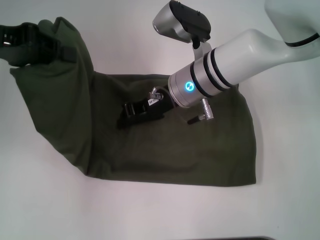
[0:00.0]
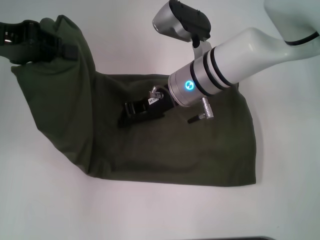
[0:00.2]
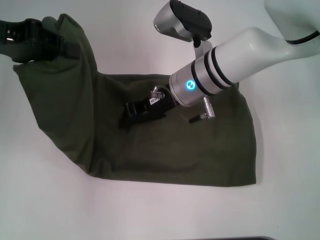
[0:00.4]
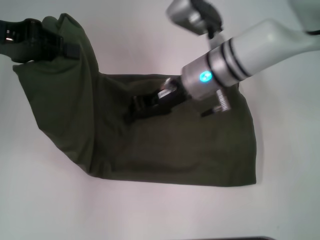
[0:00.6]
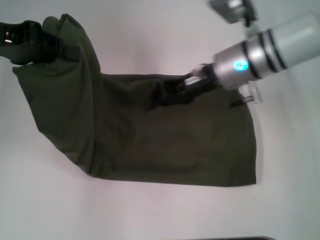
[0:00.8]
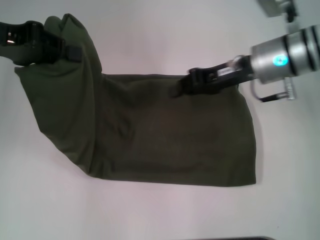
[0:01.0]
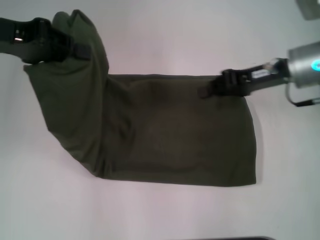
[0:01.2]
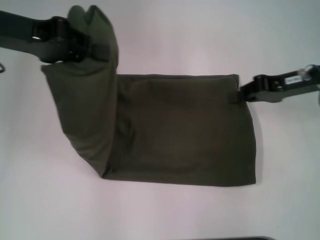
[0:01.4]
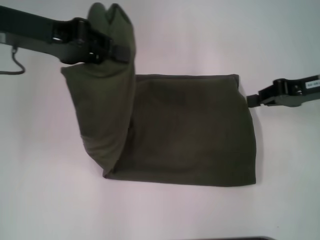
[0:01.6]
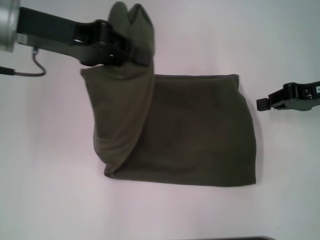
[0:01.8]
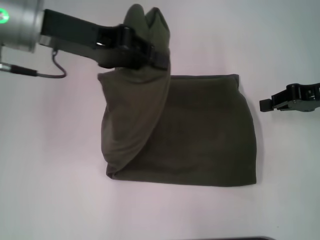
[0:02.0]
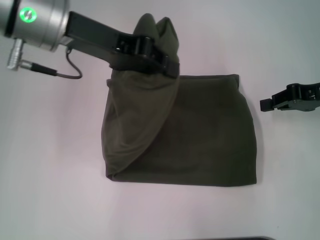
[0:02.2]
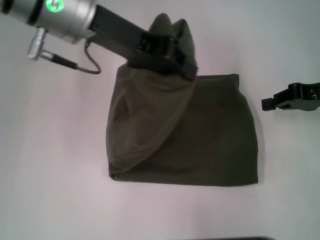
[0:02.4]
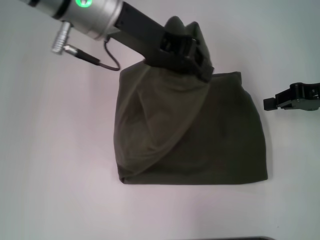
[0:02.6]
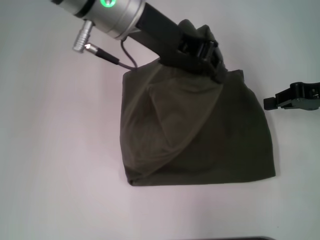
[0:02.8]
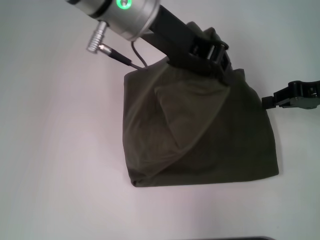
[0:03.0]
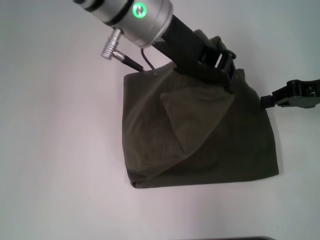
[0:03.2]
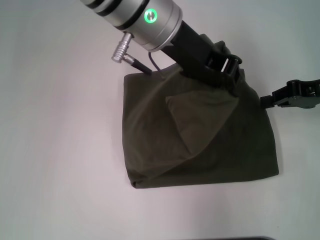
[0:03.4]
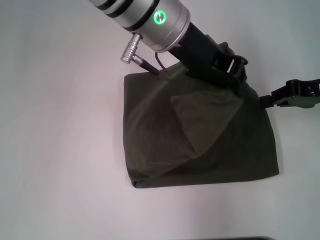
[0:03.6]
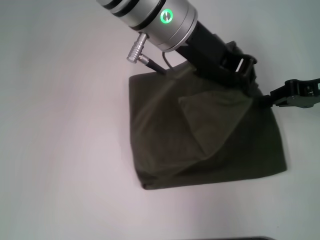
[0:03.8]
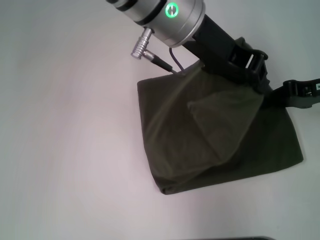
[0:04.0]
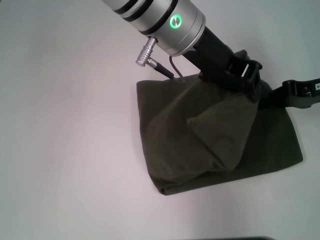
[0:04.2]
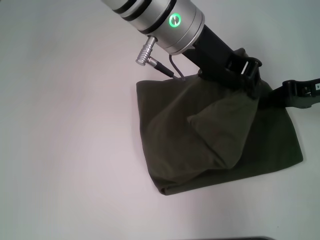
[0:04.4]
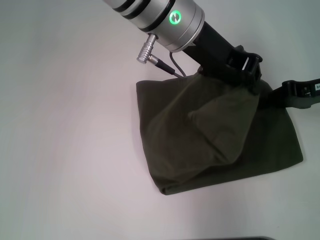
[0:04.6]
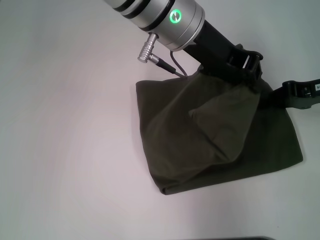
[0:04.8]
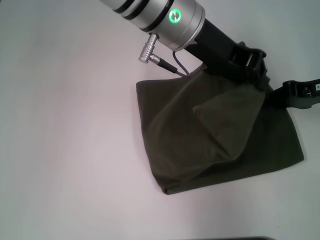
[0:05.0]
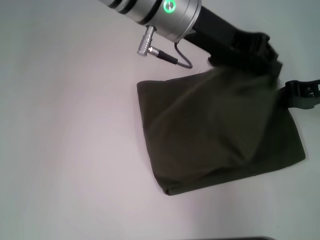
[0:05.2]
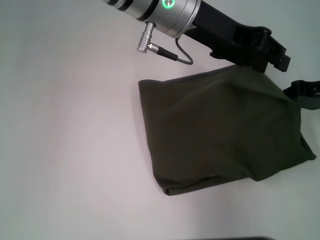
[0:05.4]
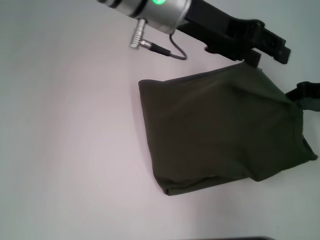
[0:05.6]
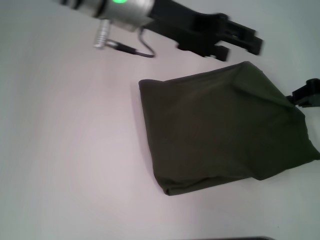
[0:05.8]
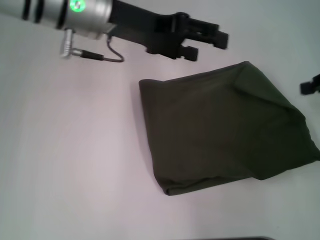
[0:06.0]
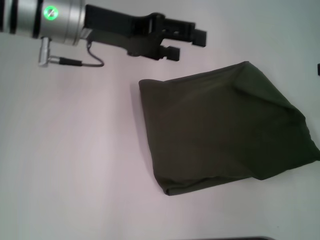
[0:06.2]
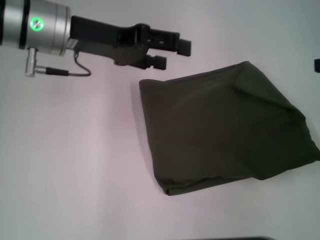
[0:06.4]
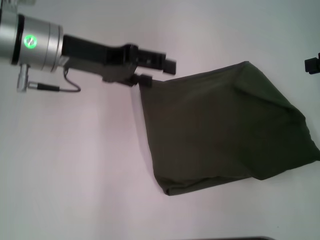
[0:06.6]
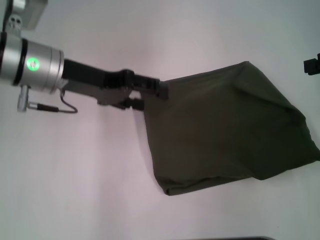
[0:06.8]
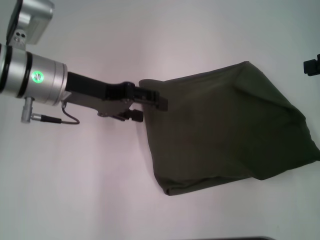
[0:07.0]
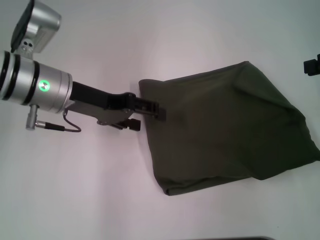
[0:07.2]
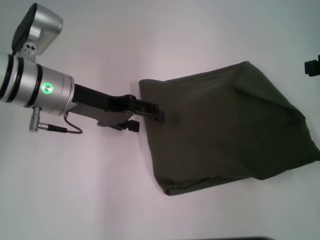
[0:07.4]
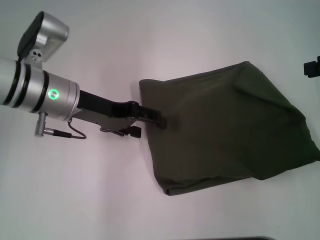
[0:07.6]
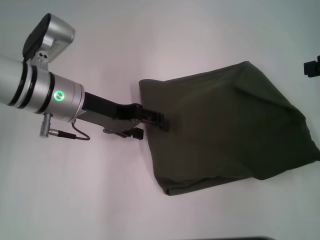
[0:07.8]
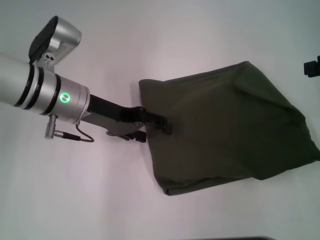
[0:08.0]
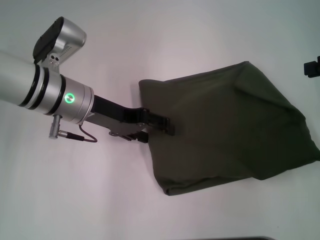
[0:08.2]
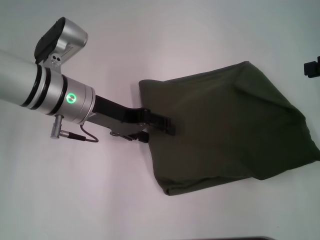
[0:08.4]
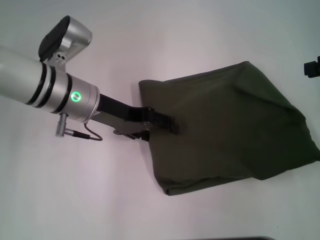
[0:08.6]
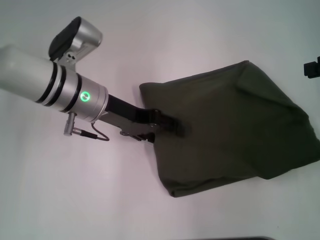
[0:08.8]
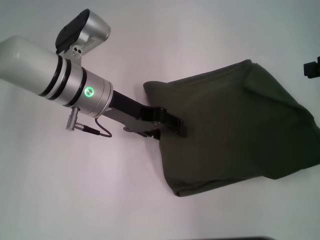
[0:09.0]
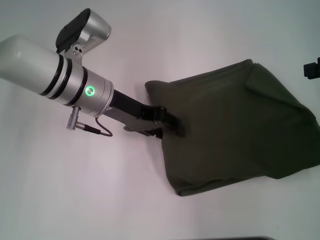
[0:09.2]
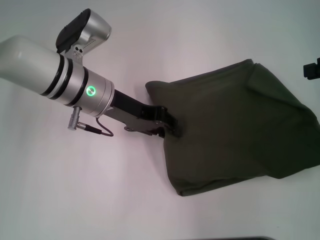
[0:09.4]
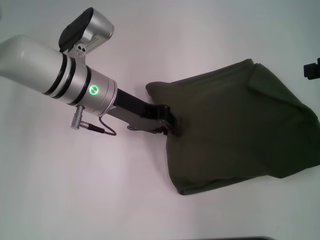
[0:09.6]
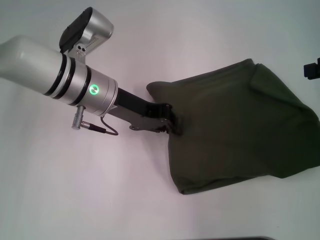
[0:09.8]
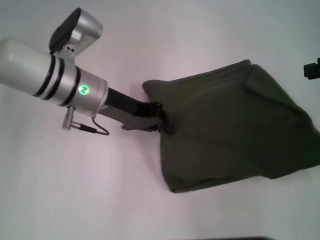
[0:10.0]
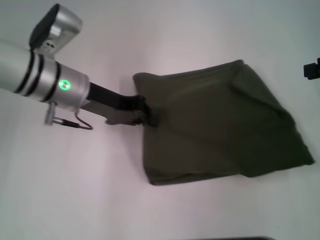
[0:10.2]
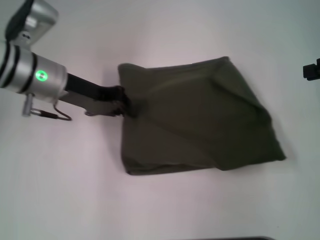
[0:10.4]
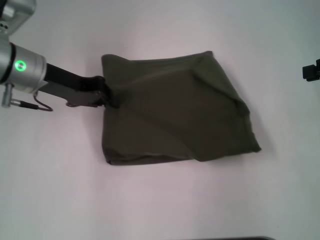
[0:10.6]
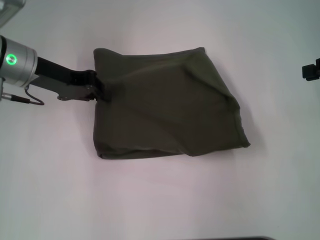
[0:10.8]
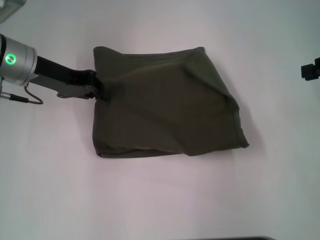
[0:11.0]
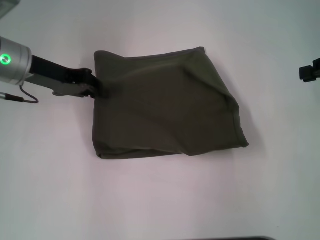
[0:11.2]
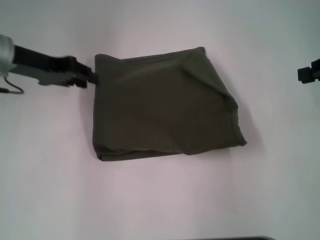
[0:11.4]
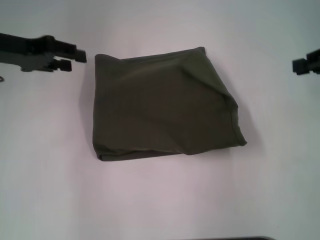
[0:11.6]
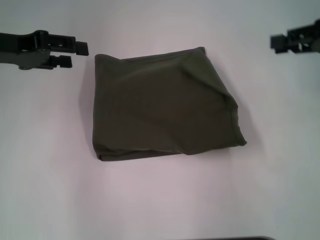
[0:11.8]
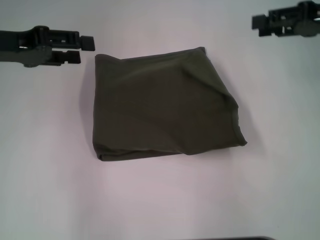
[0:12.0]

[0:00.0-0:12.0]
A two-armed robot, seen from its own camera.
Step, 0:00.0 to 0:05.6: Fold the clothes with your left hand.
0:00.0 to 0:01.6: The right gripper is displaced to the right by approximately 25 cm; the left gripper heads to the right, covering about 5 cm.
0:01.6 to 0:03.0: The left gripper heads to the right, covering roughly 15 cm.
0:03.0 to 0:04.4: The left gripper changes place by approximately 5 cm.
0:04.4 to 0:06.0: The left gripper shifts about 10 cm to the left, and opens its fingers; the right gripper travels to the right by approximately 5 cm.
0:06.0 to 0:07.6: The left gripper shifts approximately 10 cm downward and to the left.
0:07.6 to 0:09.0: The grippers make only small movements.
0:09.0 to 0:10.4: The left gripper goes some 5 cm to the left, and closes up.
0:10.4 to 0:12.0: The left gripper goes some 10 cm to the left and upward, and opens, while the right gripper goes approximately 5 cm to the left, and opens its fingers.

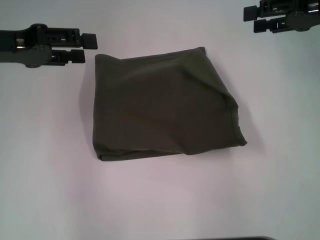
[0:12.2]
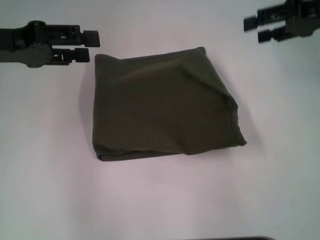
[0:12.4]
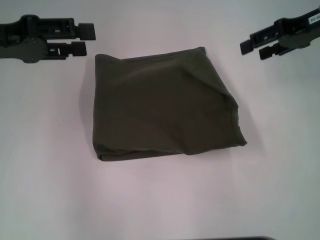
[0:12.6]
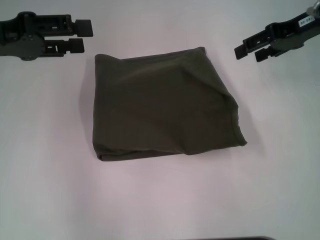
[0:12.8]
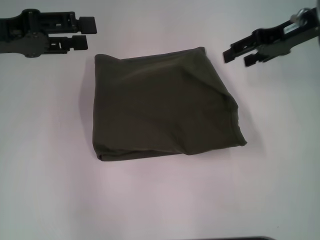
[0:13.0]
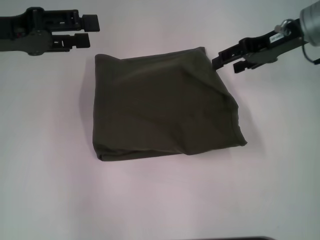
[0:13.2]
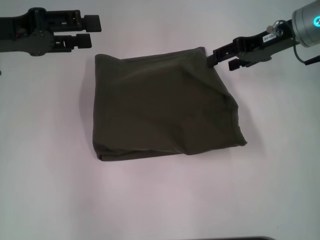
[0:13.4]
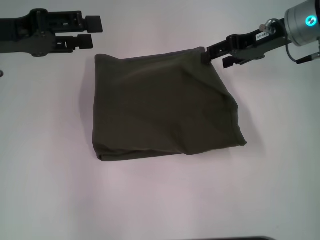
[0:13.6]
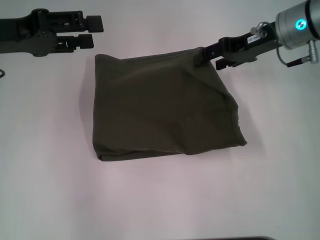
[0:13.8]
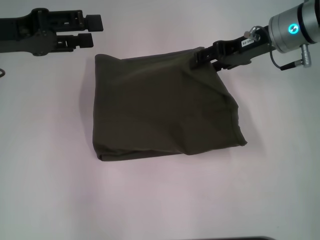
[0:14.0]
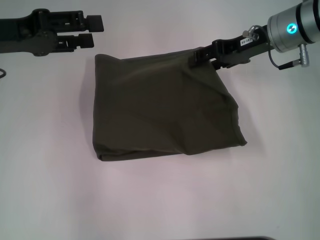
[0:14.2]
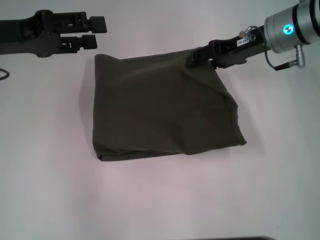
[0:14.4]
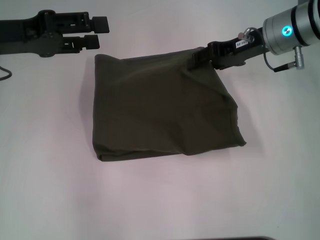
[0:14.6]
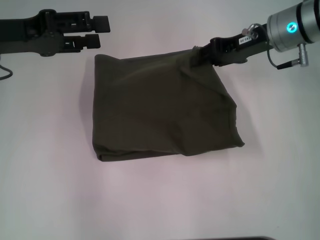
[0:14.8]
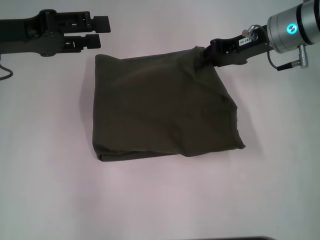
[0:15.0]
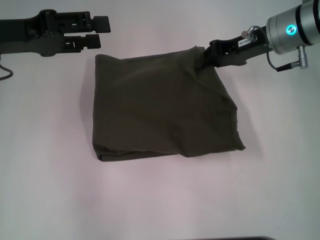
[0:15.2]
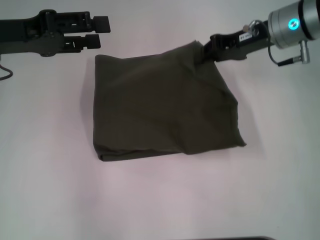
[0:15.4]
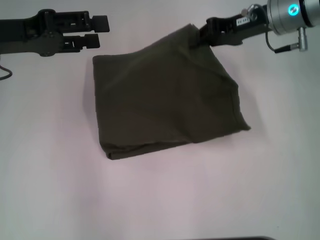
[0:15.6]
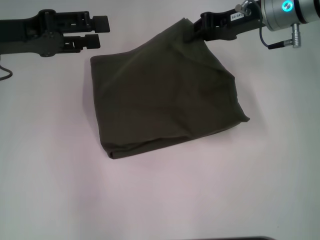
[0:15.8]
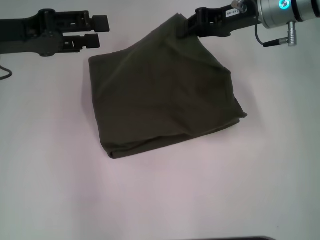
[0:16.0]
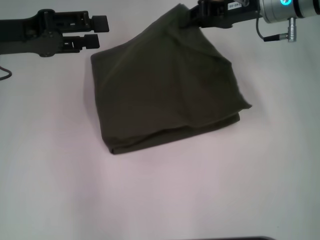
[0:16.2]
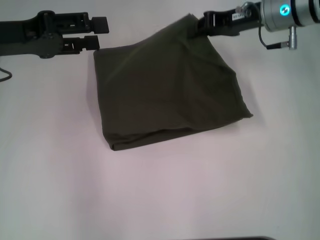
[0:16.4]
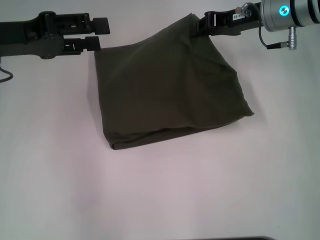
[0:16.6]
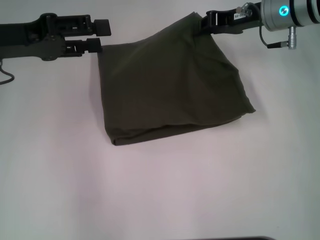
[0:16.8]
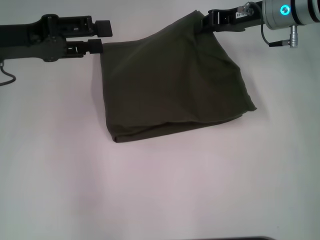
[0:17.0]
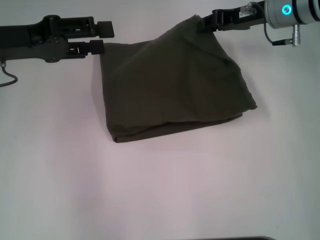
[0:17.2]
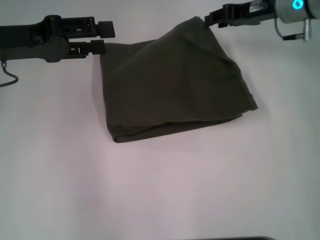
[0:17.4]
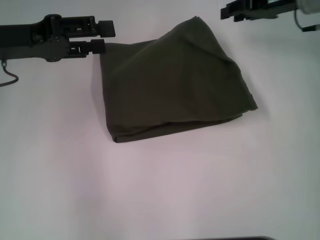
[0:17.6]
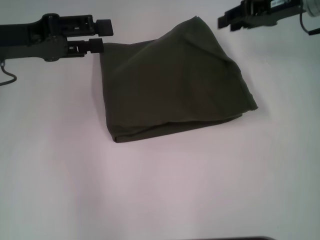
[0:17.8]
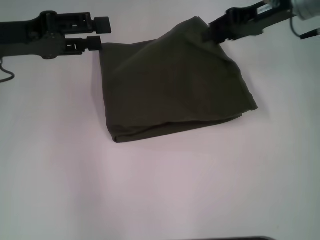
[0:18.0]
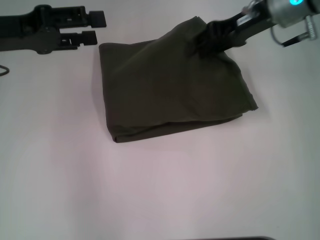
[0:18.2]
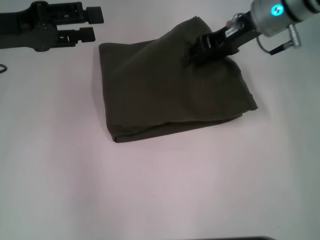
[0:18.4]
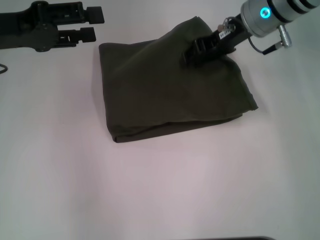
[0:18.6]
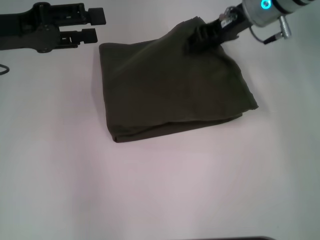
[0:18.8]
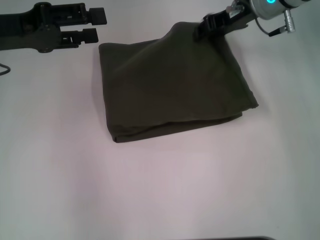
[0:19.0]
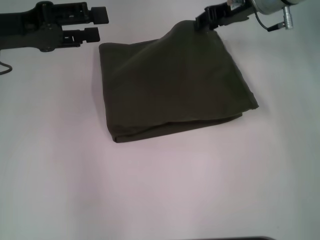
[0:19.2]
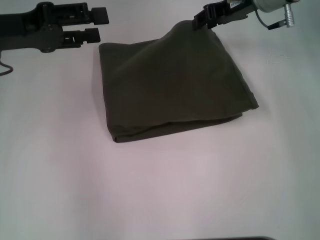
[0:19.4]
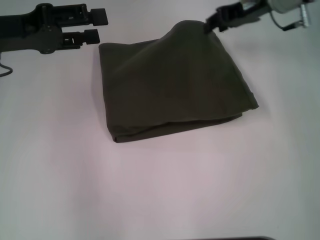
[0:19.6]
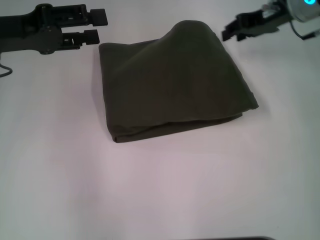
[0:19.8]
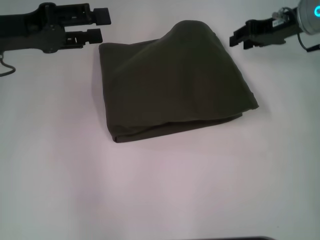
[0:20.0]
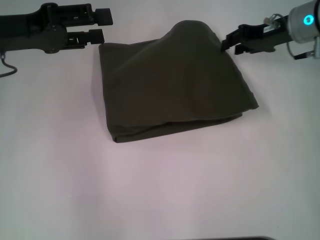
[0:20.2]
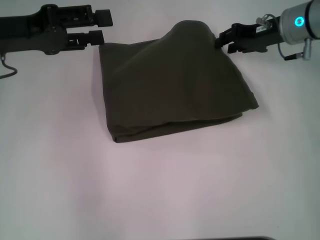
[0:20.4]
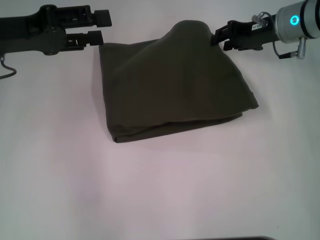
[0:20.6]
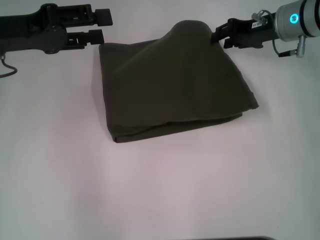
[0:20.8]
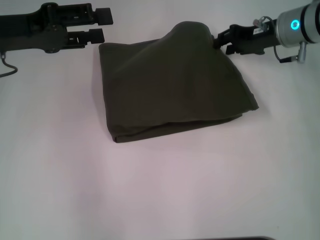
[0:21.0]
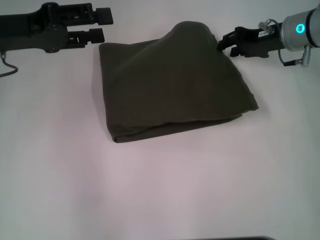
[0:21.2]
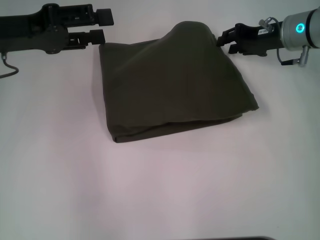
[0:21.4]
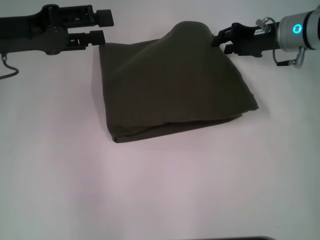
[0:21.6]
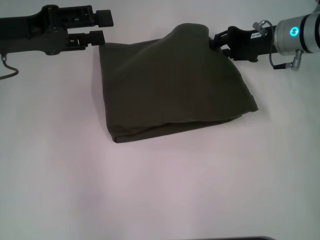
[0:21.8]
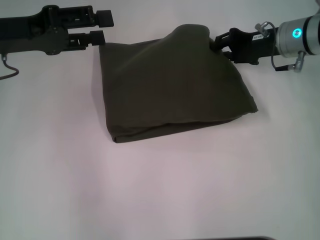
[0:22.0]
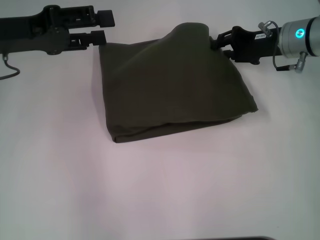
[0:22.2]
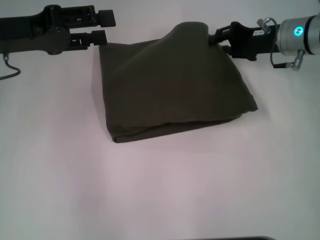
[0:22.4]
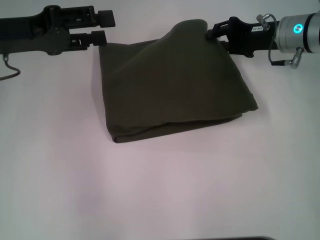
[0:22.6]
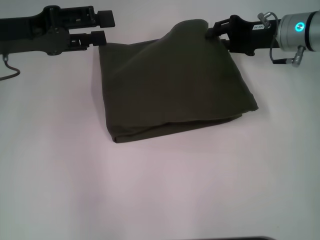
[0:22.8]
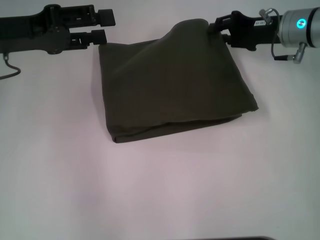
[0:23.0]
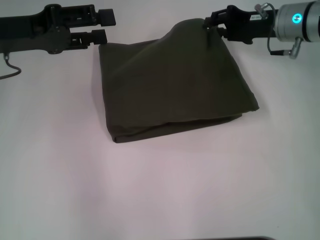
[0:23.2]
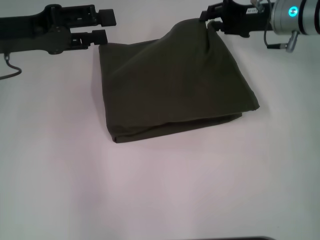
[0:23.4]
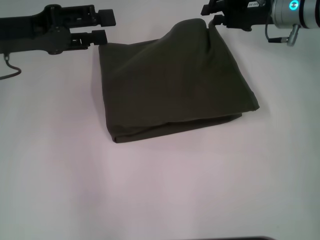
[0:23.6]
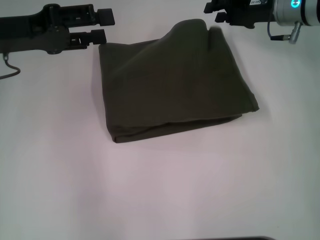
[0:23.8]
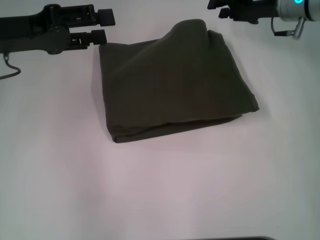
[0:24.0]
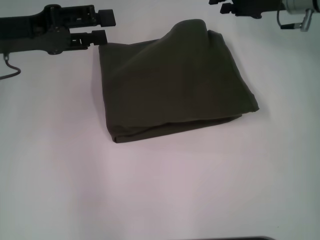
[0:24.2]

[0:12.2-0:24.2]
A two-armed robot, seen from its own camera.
0:12.2 to 0:13.8: The right gripper moves to the left, roughly 10 cm.
0:13.8 to 0:15.2: The right gripper closes up.
0:16.6 to 0:18.2: The grippers stay close to where they were, moving slightly.
0:19.8 to 0:21.2: The right gripper travels downward by approximately 5 cm.
0:21.2 to 0:22.6: The grippers move only a little.
0:22.6 to 0:24.2: The right gripper changes place by roughly 5 cm.
